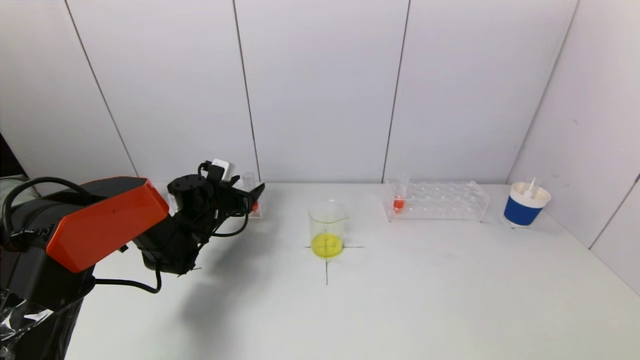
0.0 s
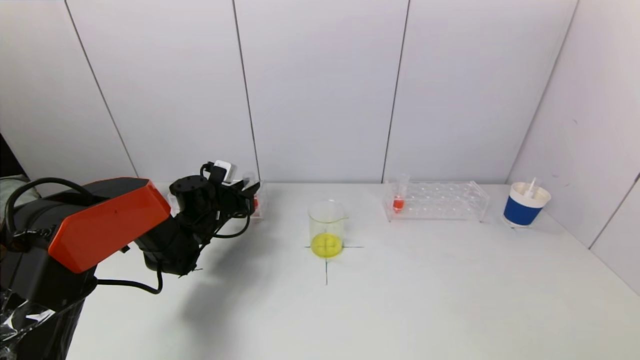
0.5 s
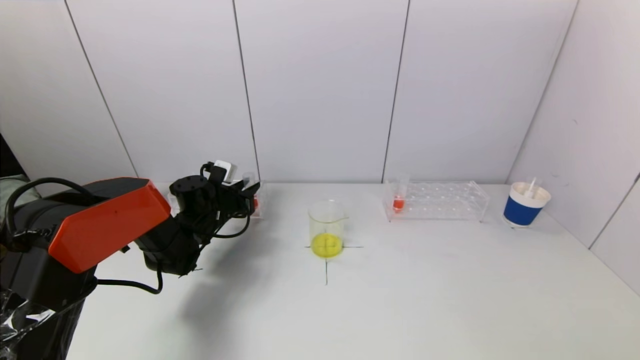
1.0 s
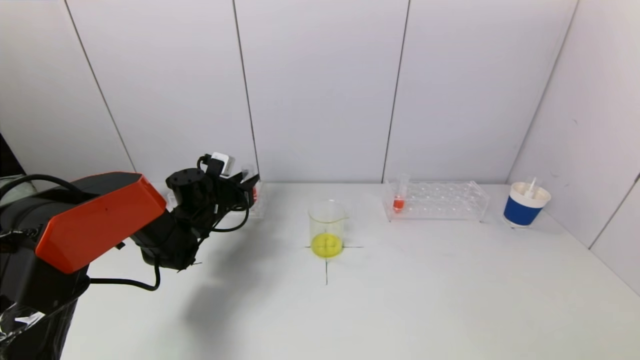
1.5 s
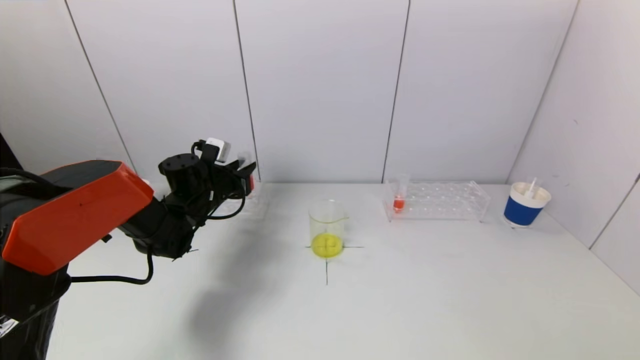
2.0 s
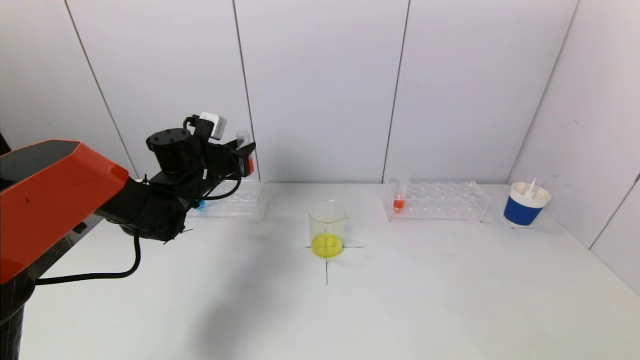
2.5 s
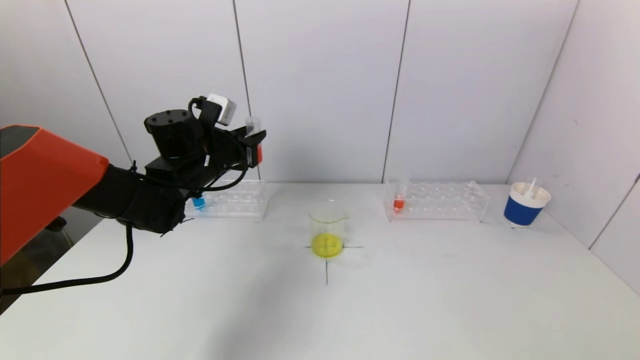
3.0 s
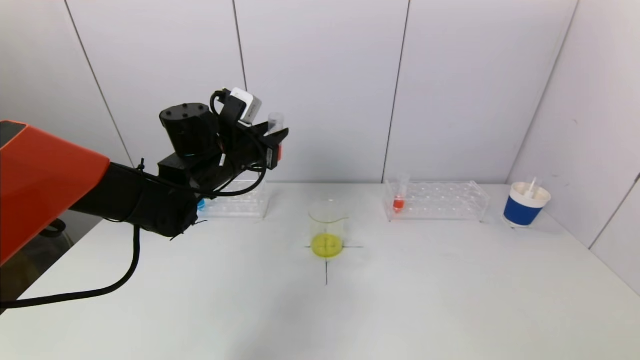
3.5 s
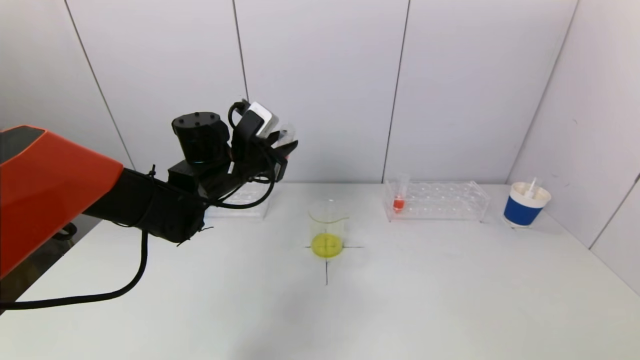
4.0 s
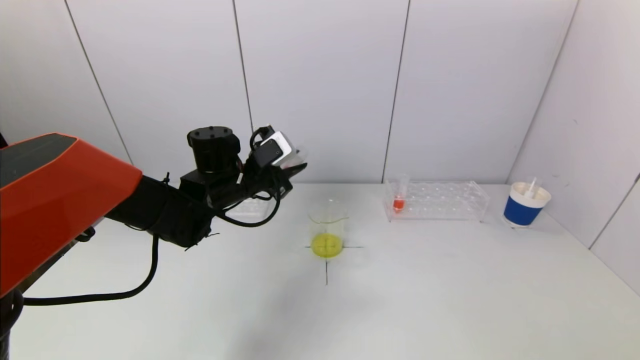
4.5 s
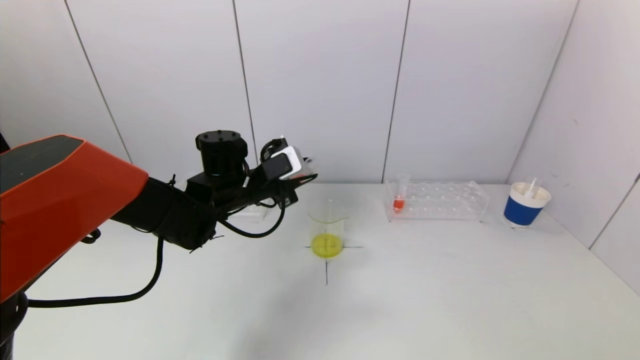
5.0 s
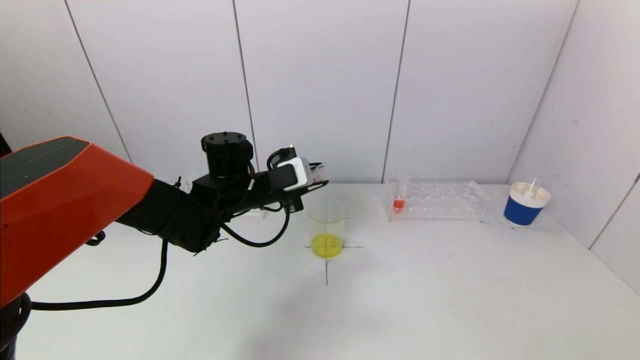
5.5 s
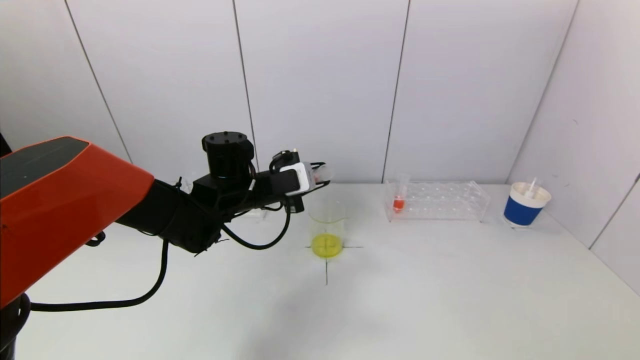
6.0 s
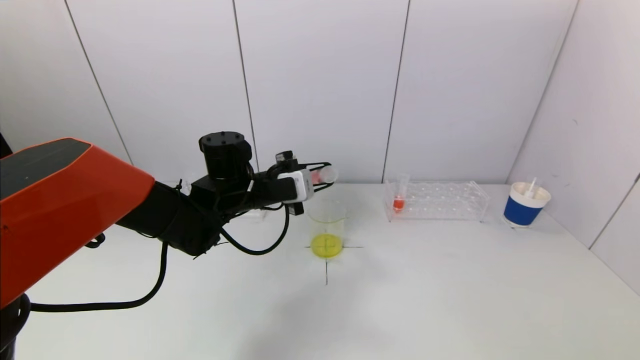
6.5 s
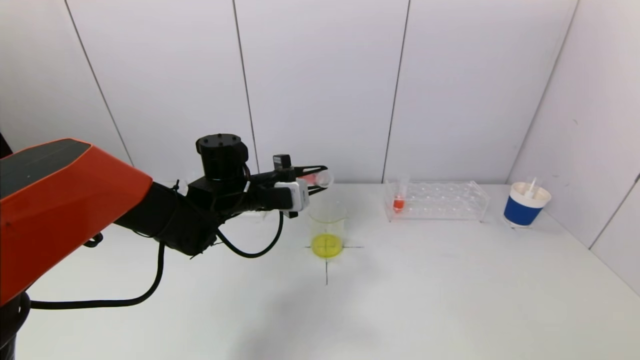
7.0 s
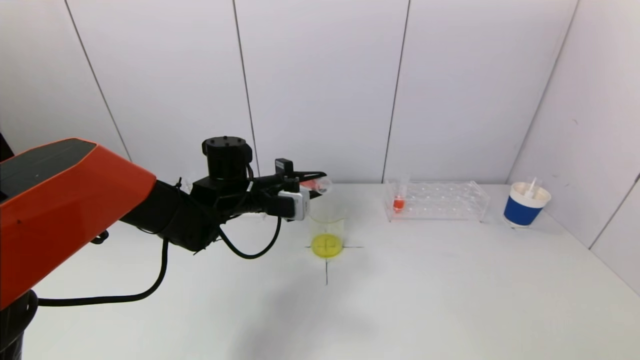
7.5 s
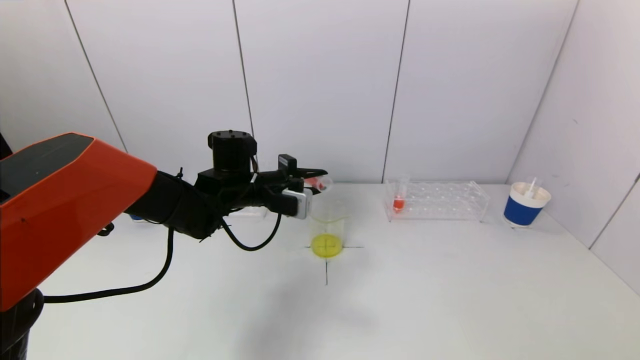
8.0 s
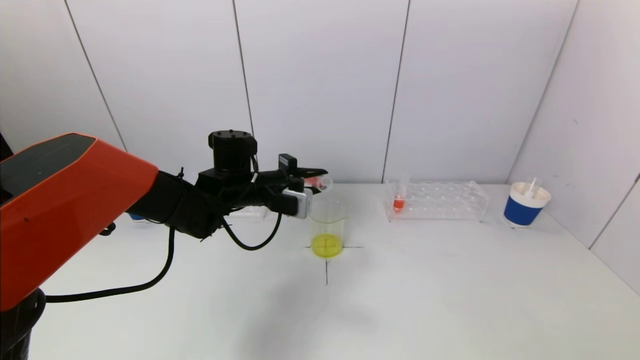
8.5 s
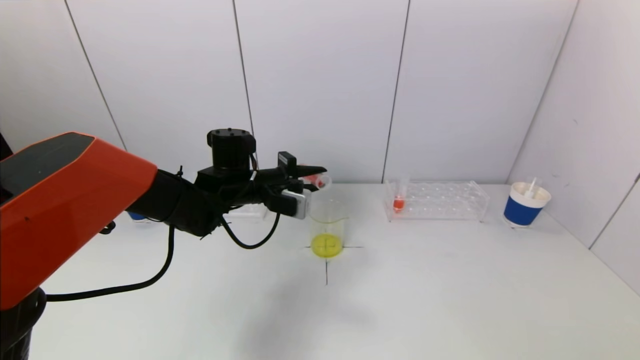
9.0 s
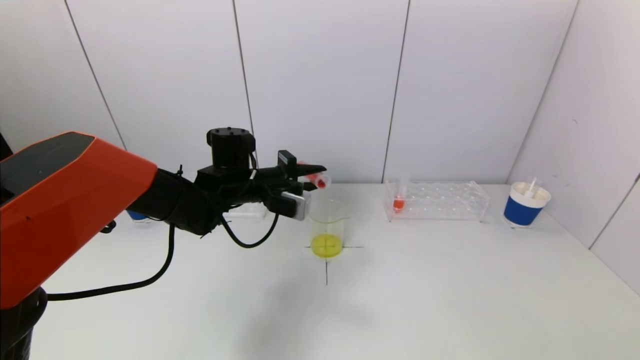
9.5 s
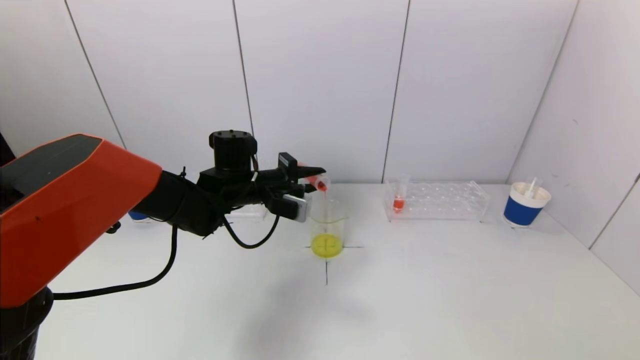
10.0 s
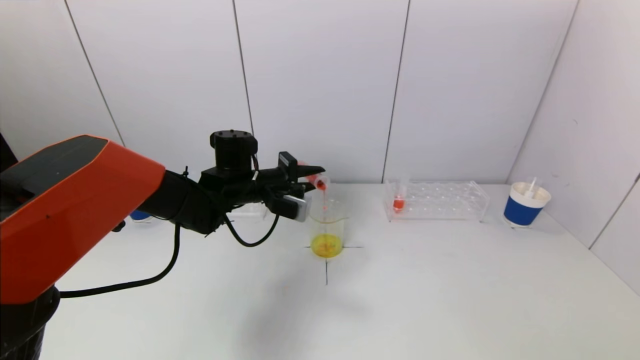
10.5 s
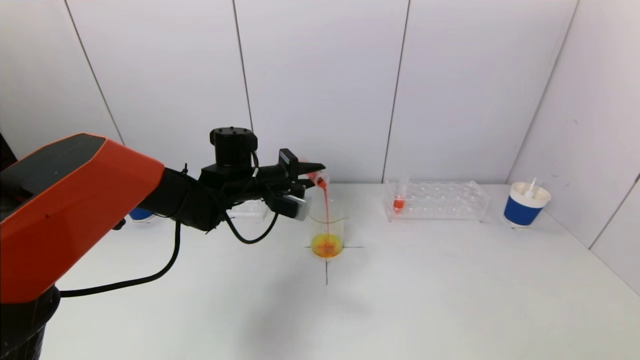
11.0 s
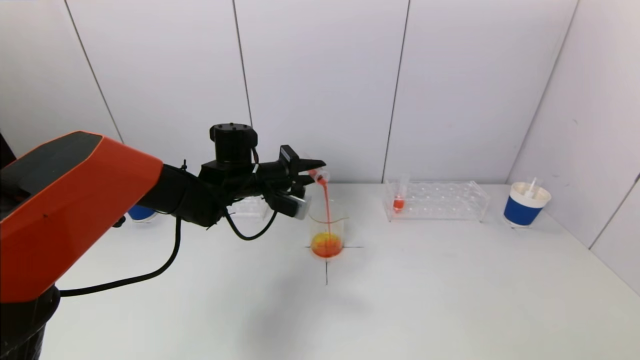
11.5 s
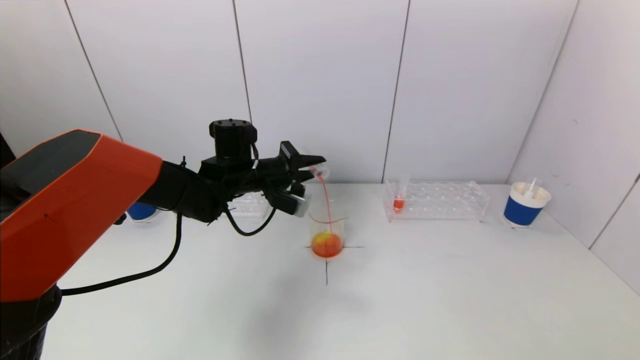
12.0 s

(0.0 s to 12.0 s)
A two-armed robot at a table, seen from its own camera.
Task of the whole recording: pick up a test tube with pigment on left test tube rack and a test tube with pigment on right test tube rack by grippers and pour them into the beaker.
0.0 s - 2.0 s: The left gripper closes up.
2.0 s - 4.0 s: The left gripper heads upward, to the right and backward, covering about 15 cm.
8.0 s - 10.0 s: The grippers move only a little.
10.0 s - 12.0 s: The grippers make only small movements.

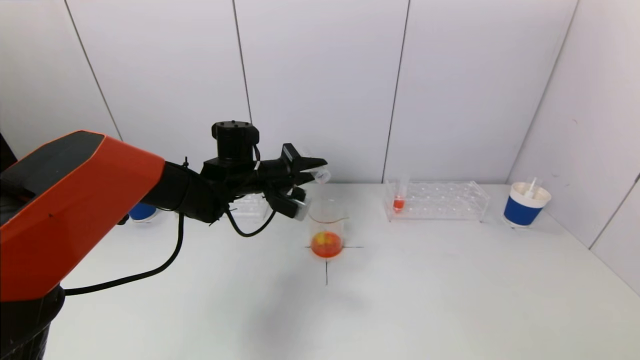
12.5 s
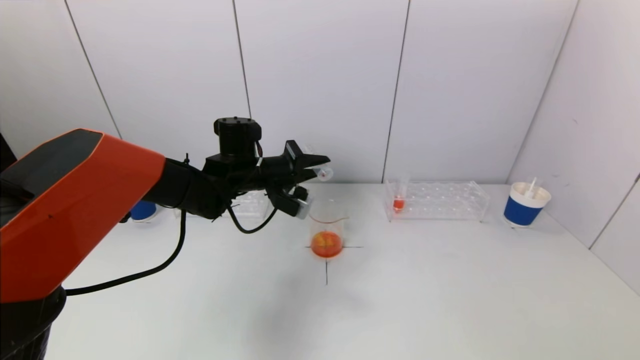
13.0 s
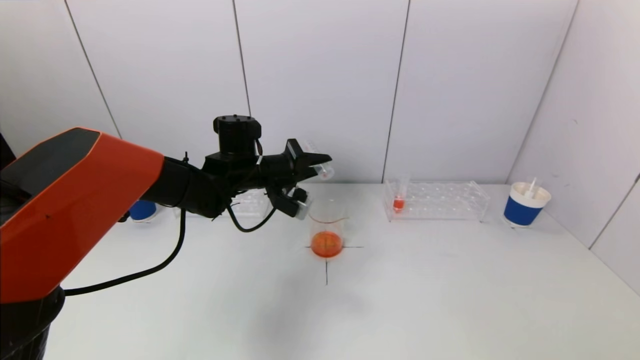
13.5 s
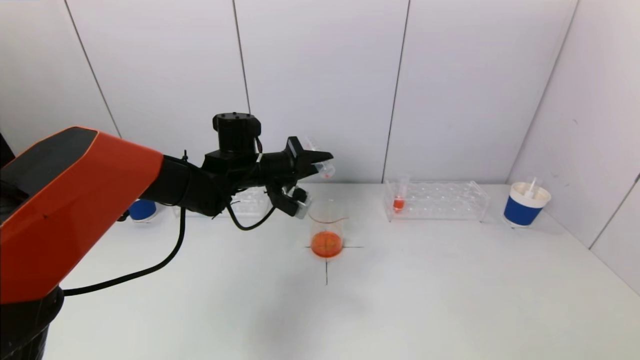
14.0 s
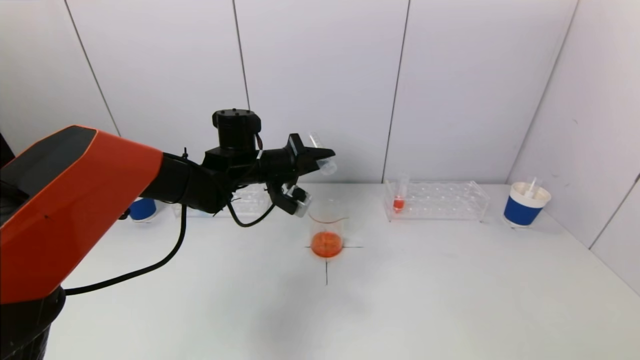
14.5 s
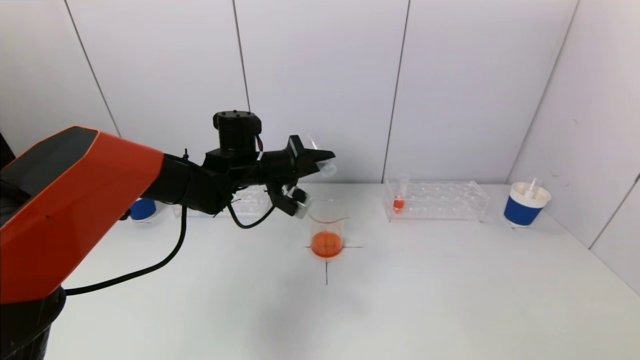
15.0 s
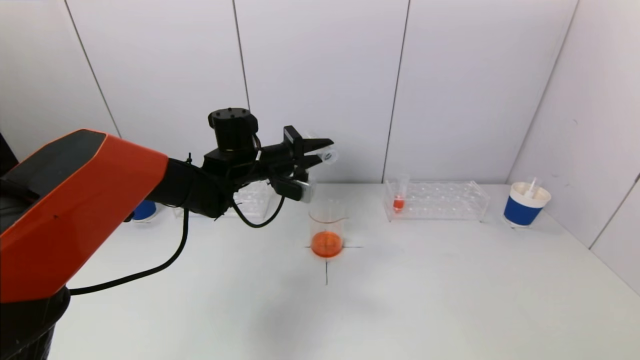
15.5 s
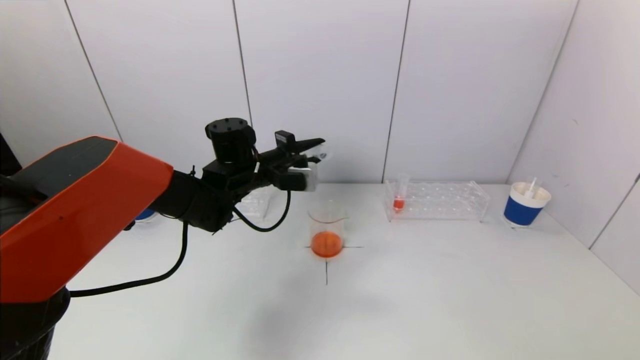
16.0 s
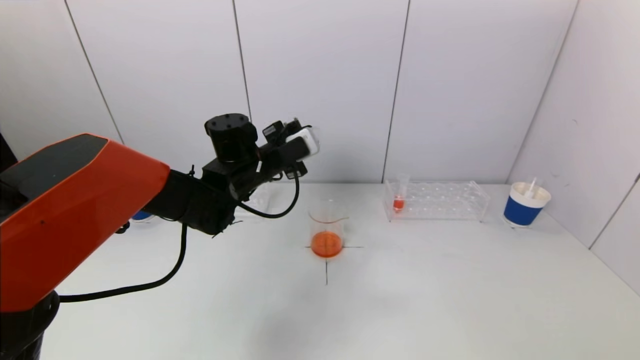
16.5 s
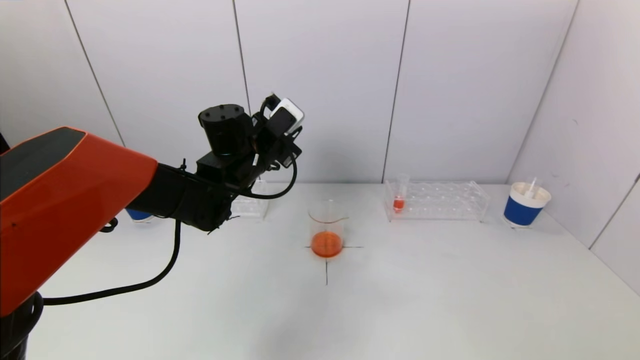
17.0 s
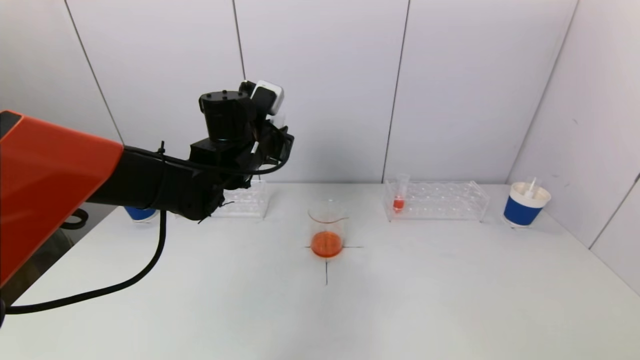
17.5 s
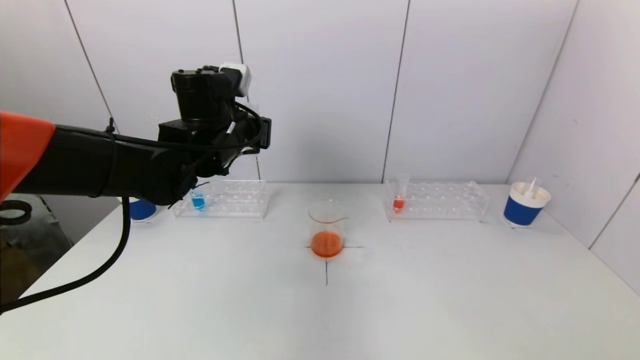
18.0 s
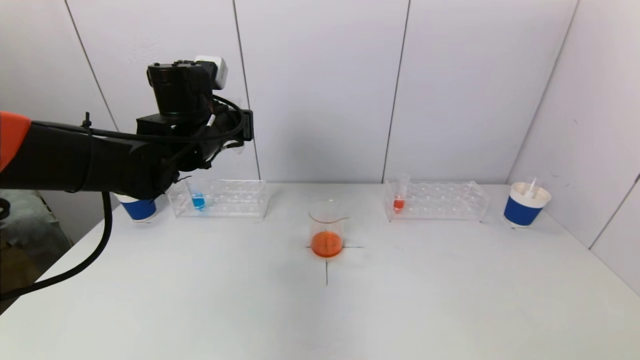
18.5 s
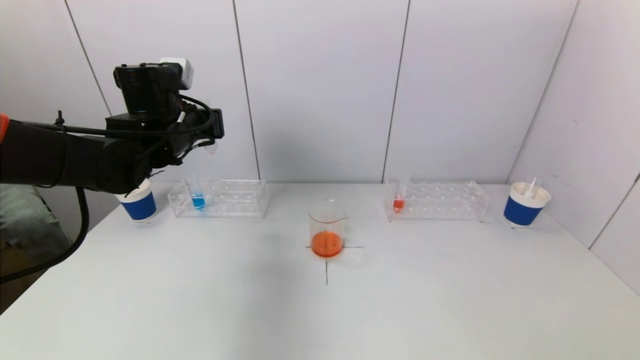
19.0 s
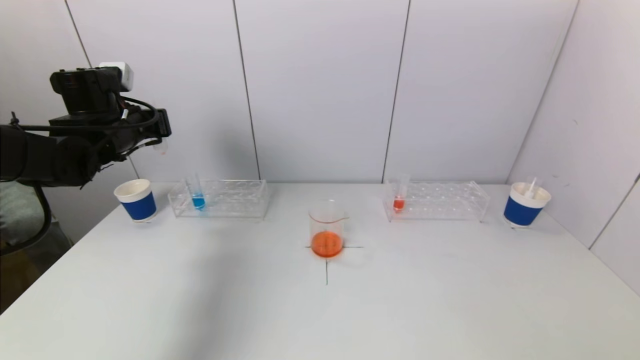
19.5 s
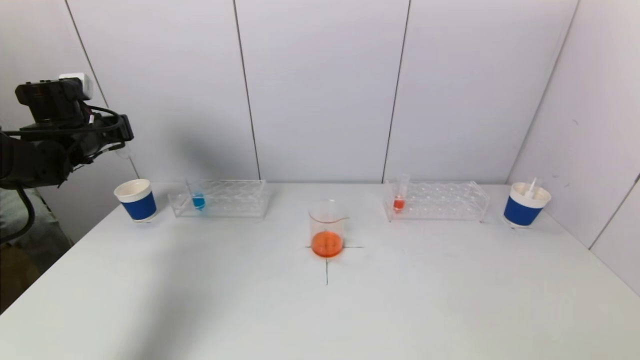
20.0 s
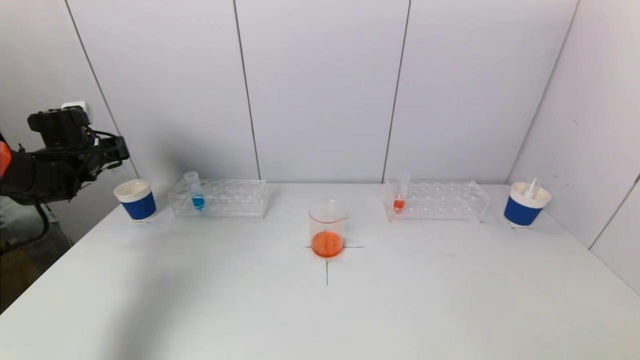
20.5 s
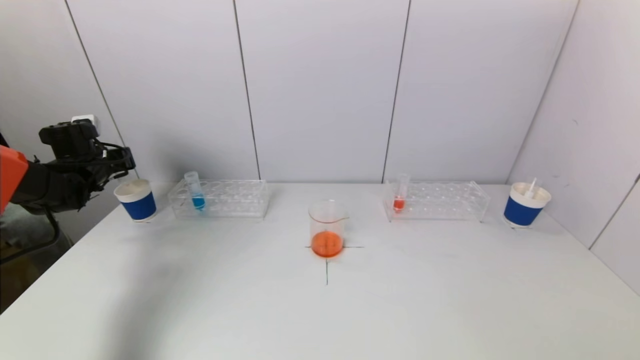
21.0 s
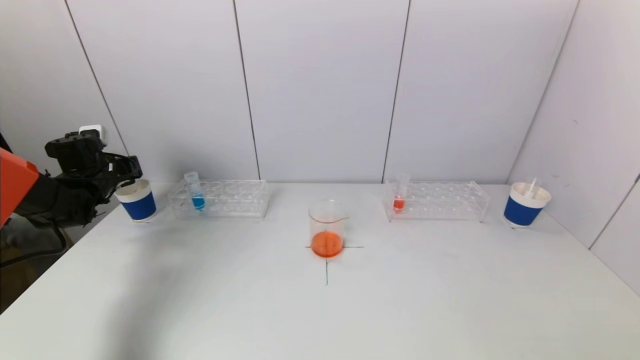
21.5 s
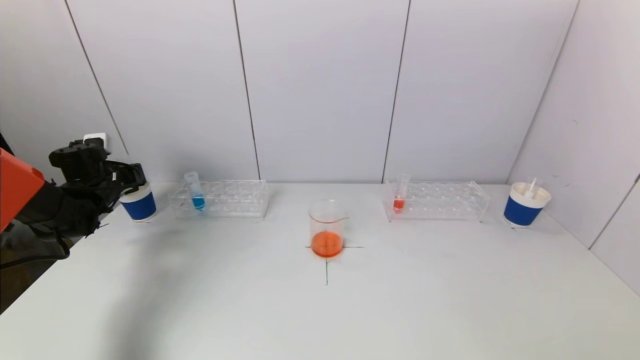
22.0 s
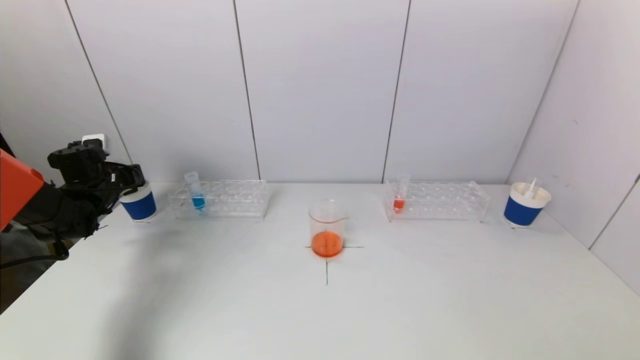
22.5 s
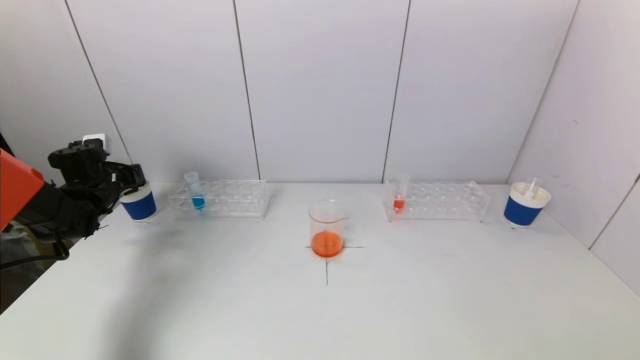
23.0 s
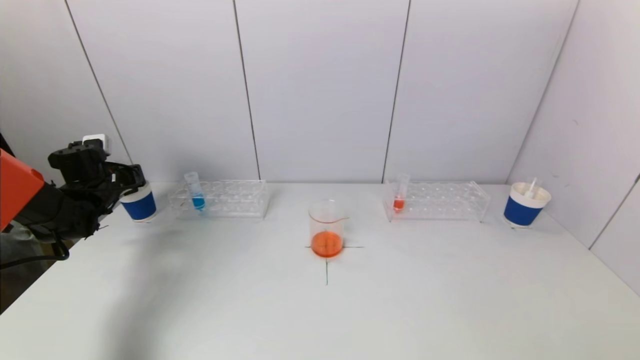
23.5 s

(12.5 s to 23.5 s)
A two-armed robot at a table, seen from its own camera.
Task of the whole recording: pick up a test tube with pigment on left test tube rack and a test tube with pigment on right test tube rack by grippers and pour them into the beaker.
12.5 s - 14.5 s: There are only small adjustments of the grippers.
16.0 s - 18.0 s: The left gripper goes approximately 5 cm upward.
18.0 s - 20.0 s: The left gripper goes approximately 25 cm to the left.
20.0 s - 21.5 s: The left gripper shifts roughly 10 cm downward.
21.5 s - 23.5 s: The grippers stay close to where they were, moving slightly.
